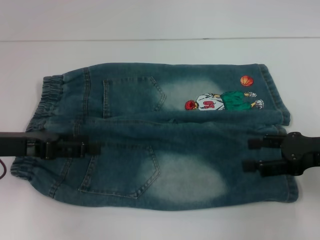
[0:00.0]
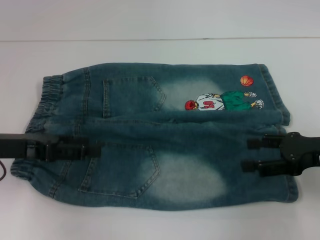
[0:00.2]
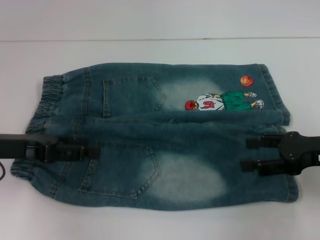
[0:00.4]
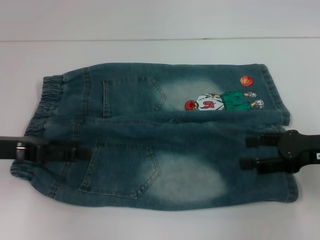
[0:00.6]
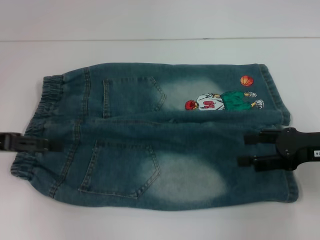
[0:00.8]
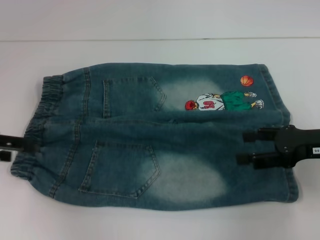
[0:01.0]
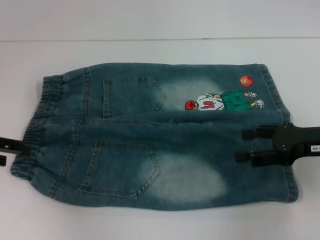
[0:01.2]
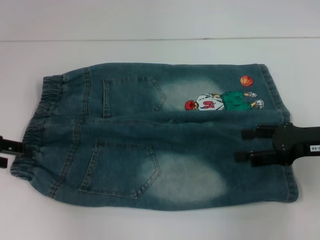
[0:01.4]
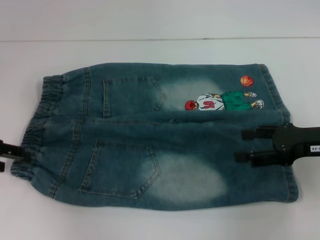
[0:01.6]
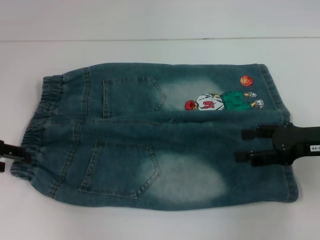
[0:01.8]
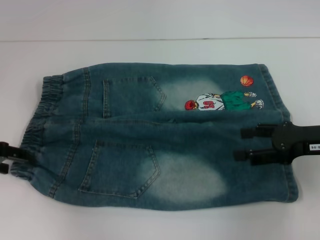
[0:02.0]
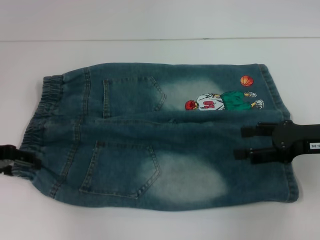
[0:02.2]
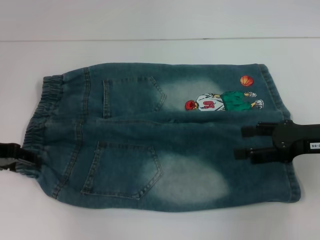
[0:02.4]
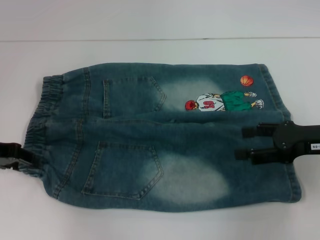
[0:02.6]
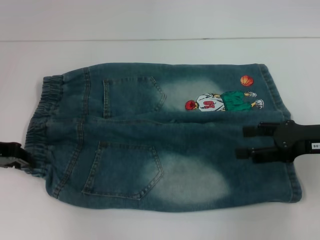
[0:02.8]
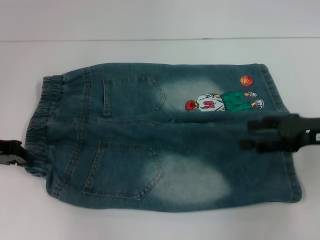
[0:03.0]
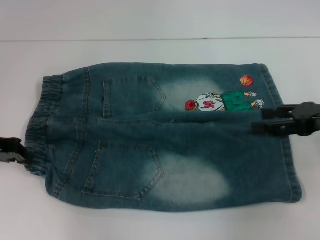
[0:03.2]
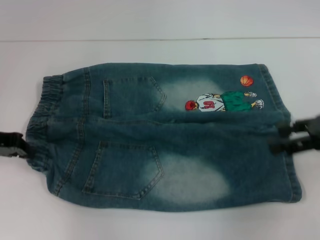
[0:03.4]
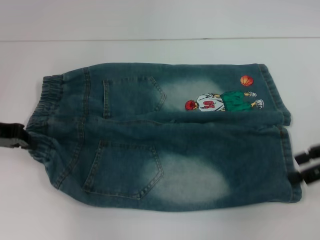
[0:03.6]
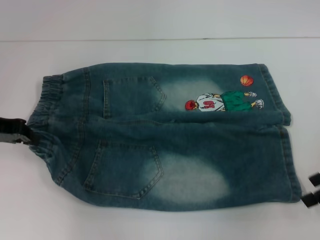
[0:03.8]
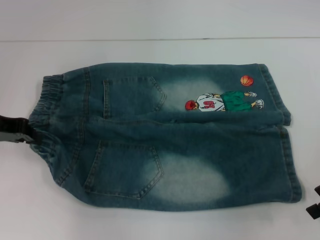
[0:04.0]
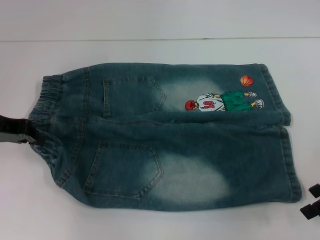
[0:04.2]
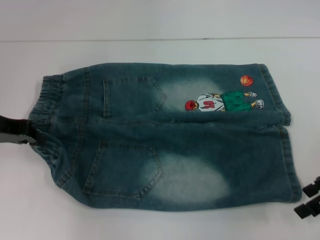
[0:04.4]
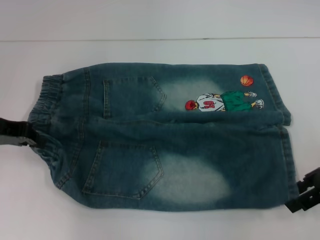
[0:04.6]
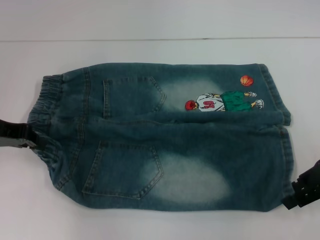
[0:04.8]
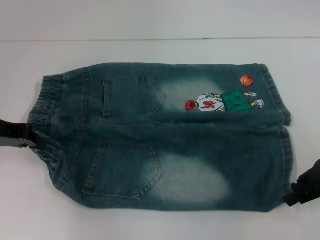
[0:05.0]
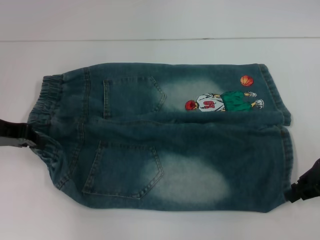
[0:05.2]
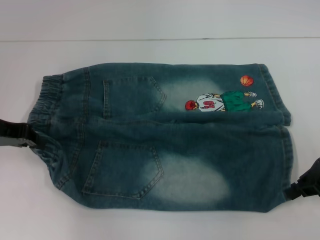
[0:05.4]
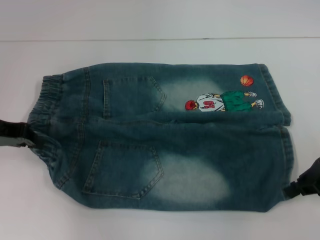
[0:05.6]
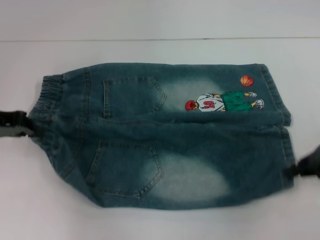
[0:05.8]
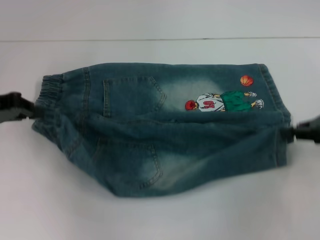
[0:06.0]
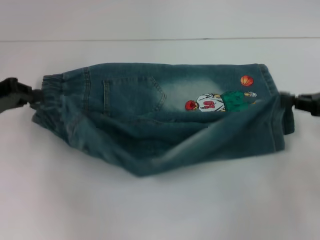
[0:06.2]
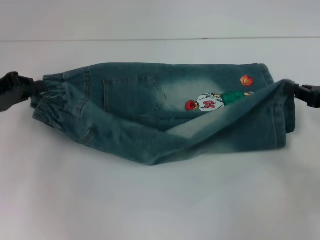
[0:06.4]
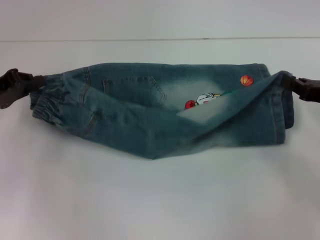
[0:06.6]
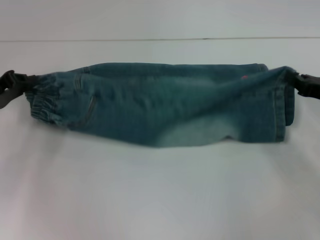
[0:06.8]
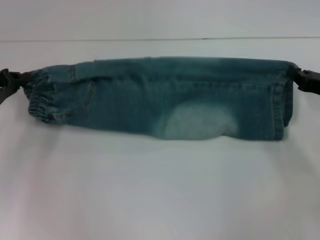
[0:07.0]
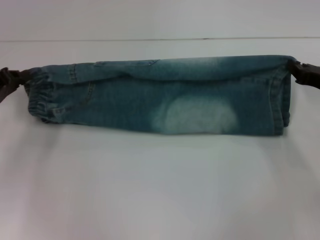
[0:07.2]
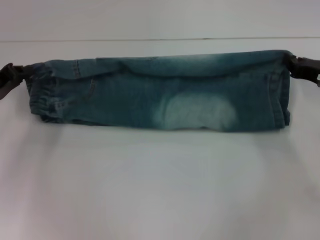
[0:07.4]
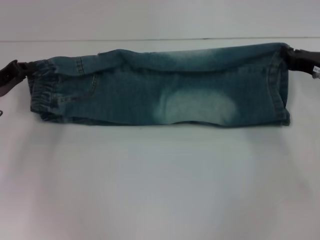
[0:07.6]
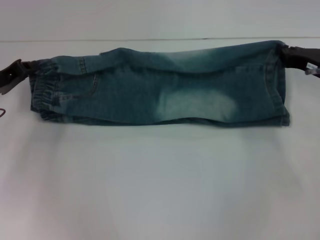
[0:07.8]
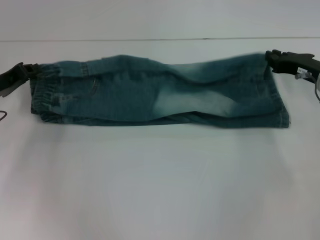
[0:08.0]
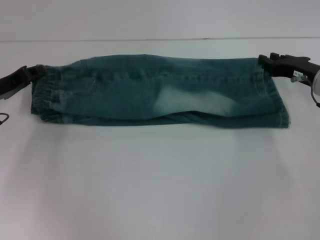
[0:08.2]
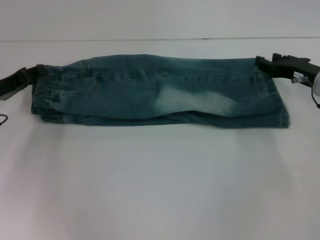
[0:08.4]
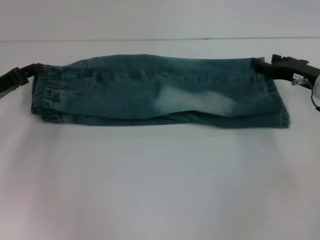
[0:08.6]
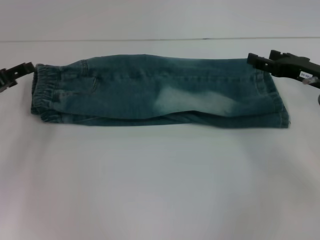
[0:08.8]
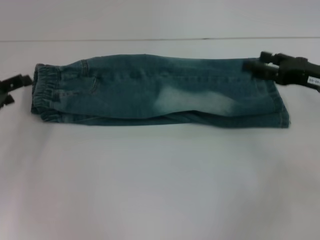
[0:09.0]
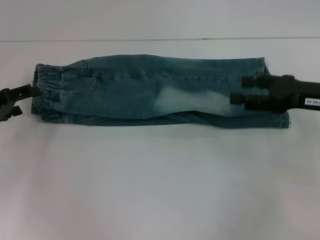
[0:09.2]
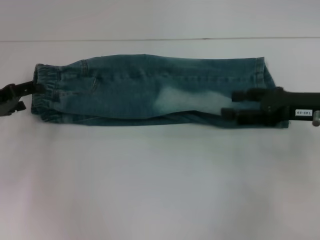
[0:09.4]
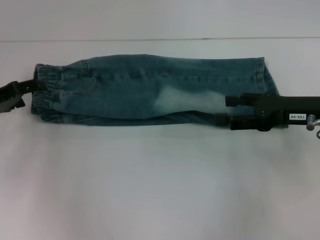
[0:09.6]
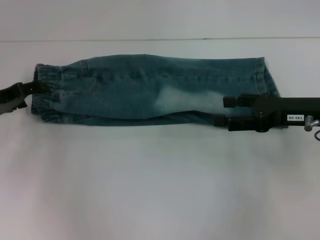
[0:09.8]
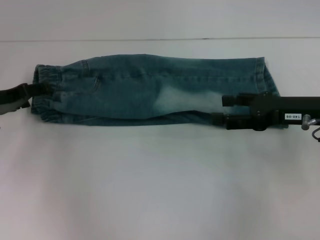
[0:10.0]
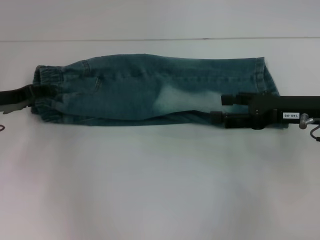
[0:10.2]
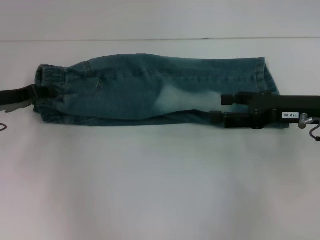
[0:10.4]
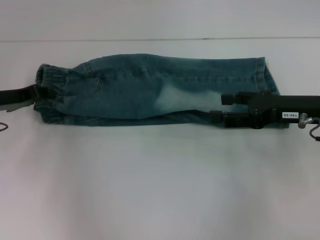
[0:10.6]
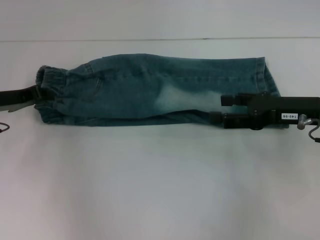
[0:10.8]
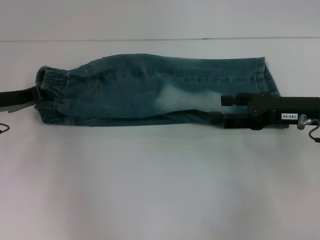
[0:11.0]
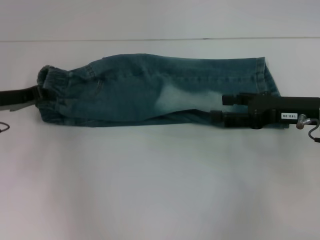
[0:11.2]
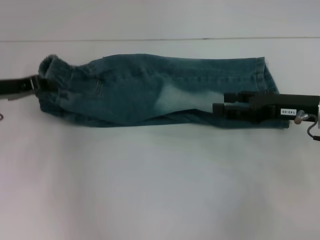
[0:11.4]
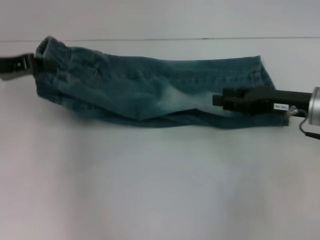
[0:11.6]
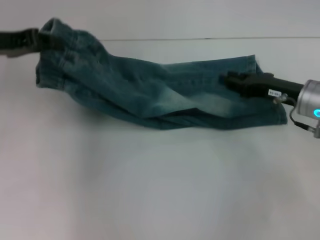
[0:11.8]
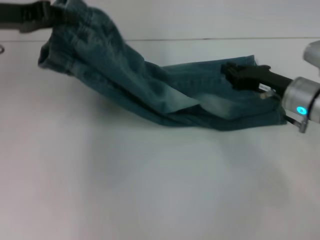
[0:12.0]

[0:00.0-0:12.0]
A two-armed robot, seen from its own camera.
Step, 0:00.0 to 0:02.8: Hold the lower left waistband with your left hand.
Step, 0:03.0 to 0:04.8: Grab the lower right pant leg with your right hand.
Step, 0:05.2 to 0:08.2: Fold upward with your right hand.
Step, 0:08.4 to 0:10.4: Hold the waistband with your left hand.
0:00.0 to 0:01.6: The left gripper is displaced to the left by roughly 5 cm.
0:01.6 to 0:03.0: The left gripper closes its fingers.
0:04.4 to 0:06.0: The right gripper closes its fingers.
0:06.0 to 0:07.6: The left gripper is displaced downward by approximately 5 cm, while the right gripper travels forward and downward by some 10 cm.
0:07.6 to 0:09.0: The left gripper opens. The right gripper opens.
0:09.0 to 0:10.4: The left gripper shifts by roughly 5 cm.
0:10.4 to 0:12.0: The left gripper moves upward, about 15 cm, and closes up. Meanwhile the right gripper moves about 5 cm, and closes its fingers.

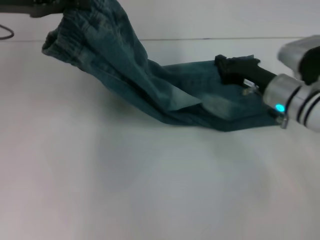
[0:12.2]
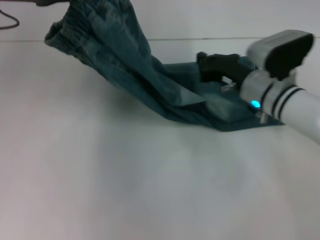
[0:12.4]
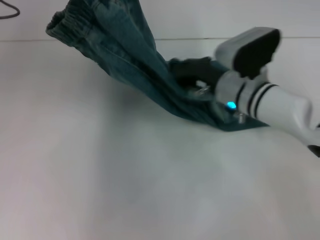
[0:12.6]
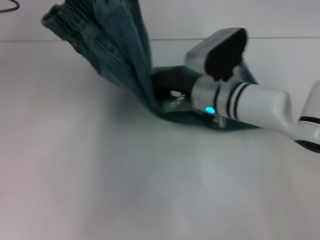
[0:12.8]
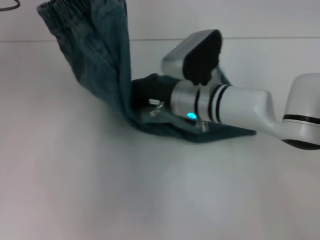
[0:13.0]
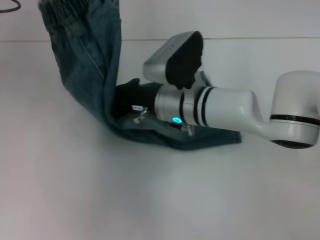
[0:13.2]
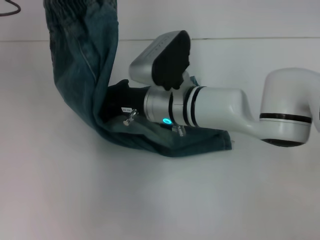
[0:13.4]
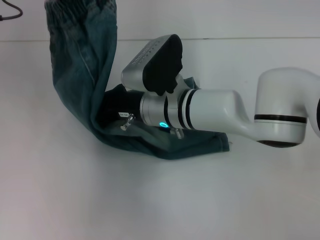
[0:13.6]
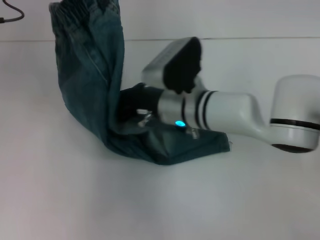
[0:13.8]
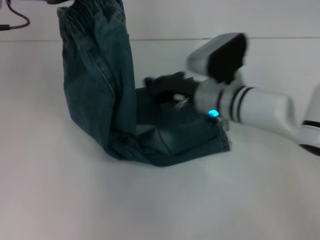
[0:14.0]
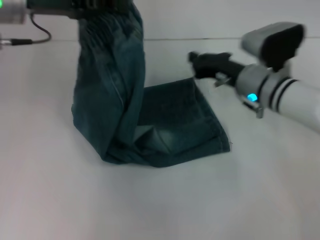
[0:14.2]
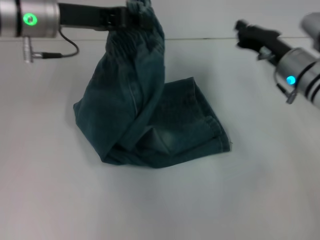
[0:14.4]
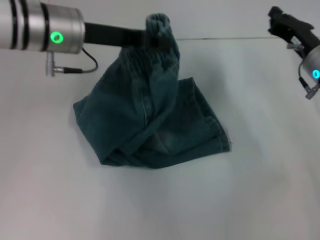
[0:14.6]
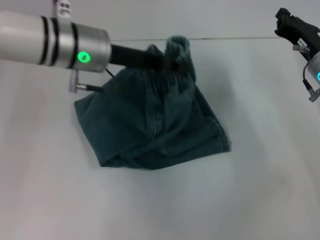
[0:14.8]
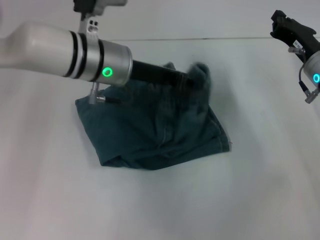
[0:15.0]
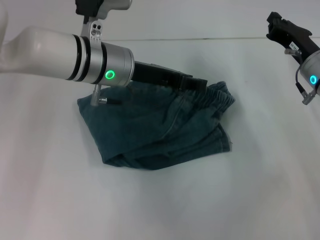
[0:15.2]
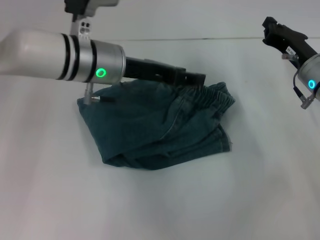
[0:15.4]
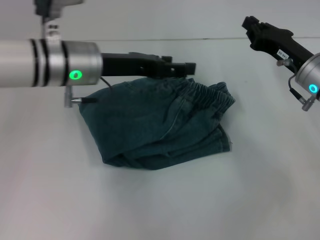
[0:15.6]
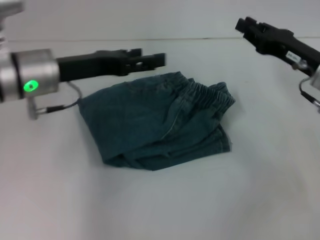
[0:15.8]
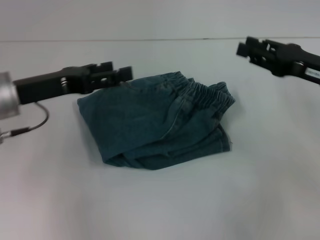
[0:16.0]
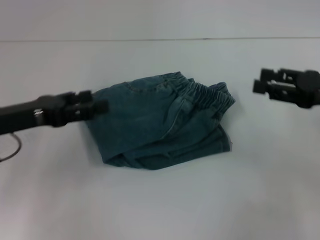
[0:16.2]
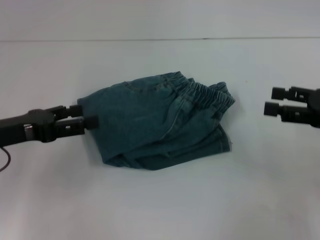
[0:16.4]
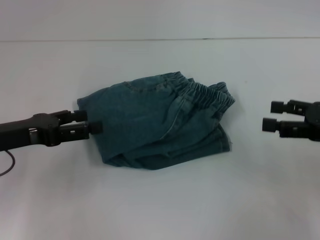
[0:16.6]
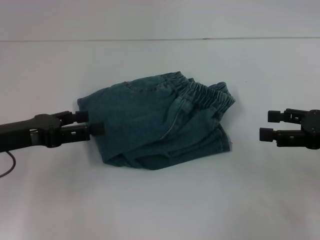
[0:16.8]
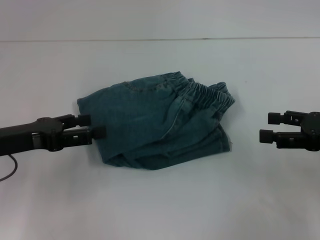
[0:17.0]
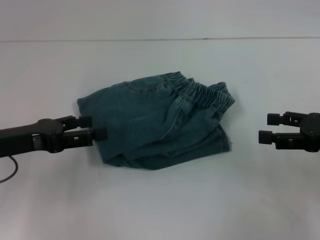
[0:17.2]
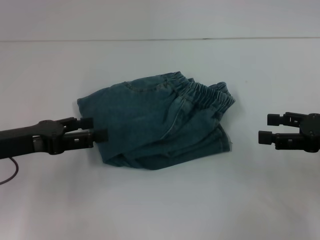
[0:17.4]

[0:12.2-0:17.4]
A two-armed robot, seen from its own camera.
Step, 0:12.2 to 0:13.8: Press the middle of the pants with your right hand.
Step, 0:14.0 to 0:15.2: Fold to the right with your left hand.
0:12.2 to 0:14.0: The right gripper shifts some 10 cm to the left.
0:14.0 to 0:15.6: The right gripper goes about 15 cm to the right. Meanwhile the left gripper travels to the right and downward by approximately 15 cm, and opens.
0:15.6 to 0:17.4: The right gripper is displaced backward and to the right by approximately 15 cm, and opens. The left gripper goes approximately 15 cm to the left and backward.

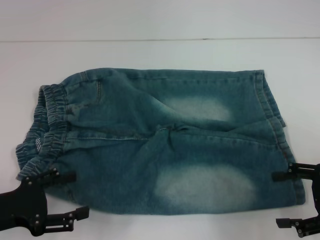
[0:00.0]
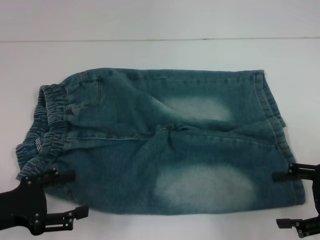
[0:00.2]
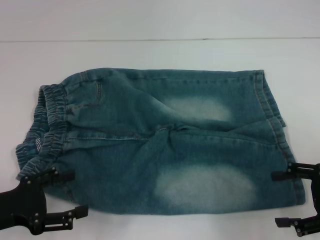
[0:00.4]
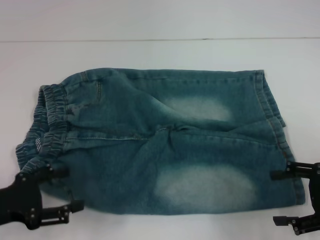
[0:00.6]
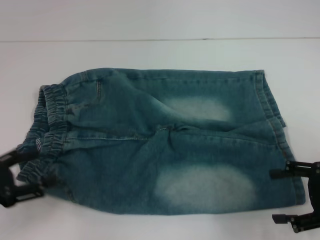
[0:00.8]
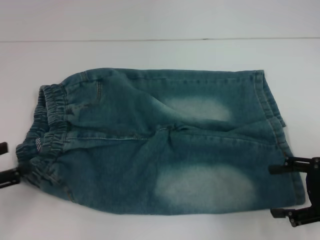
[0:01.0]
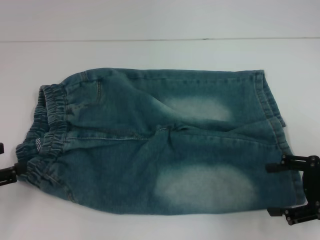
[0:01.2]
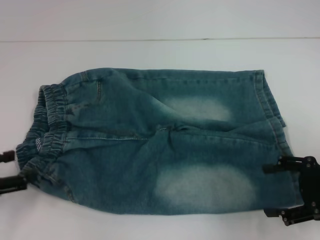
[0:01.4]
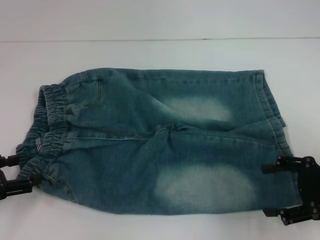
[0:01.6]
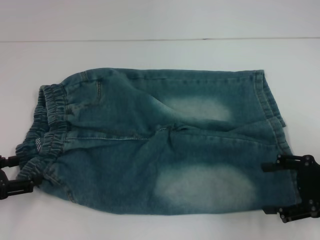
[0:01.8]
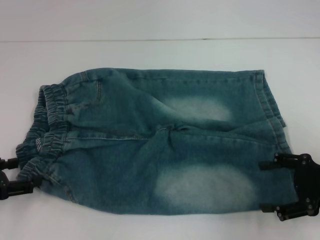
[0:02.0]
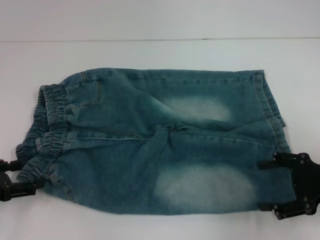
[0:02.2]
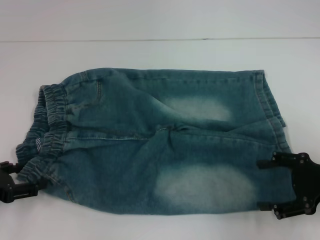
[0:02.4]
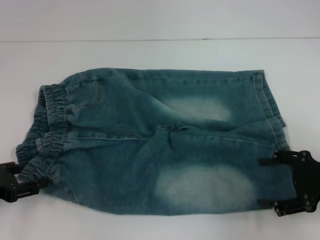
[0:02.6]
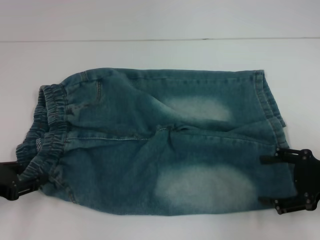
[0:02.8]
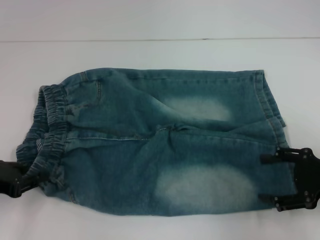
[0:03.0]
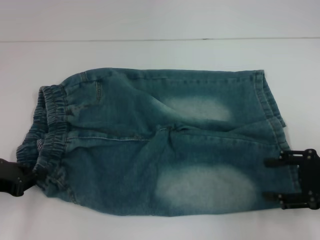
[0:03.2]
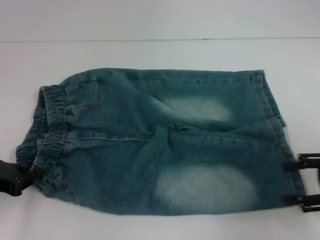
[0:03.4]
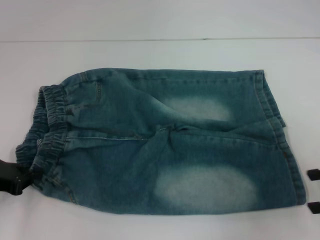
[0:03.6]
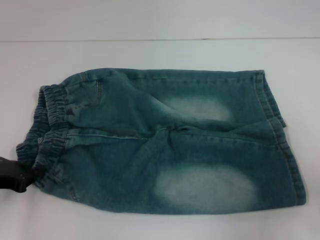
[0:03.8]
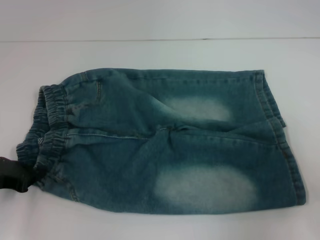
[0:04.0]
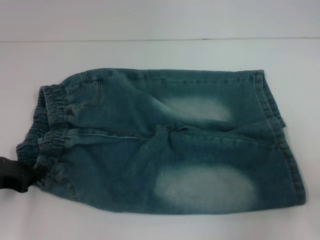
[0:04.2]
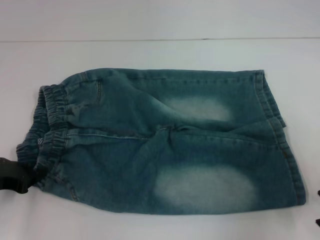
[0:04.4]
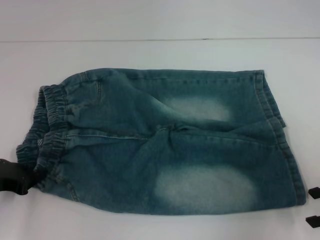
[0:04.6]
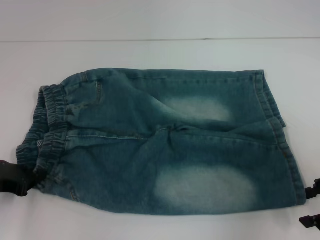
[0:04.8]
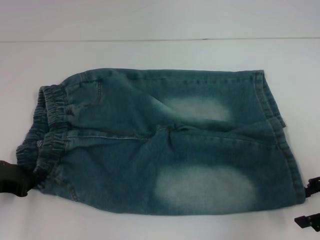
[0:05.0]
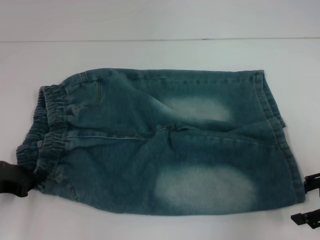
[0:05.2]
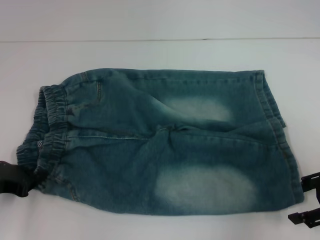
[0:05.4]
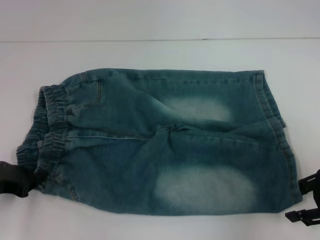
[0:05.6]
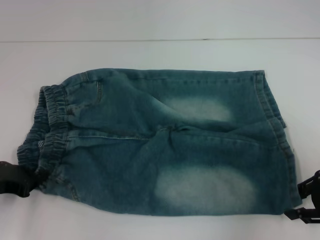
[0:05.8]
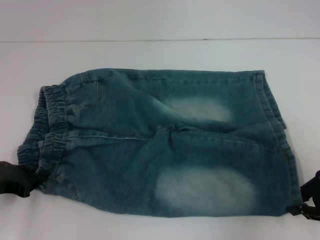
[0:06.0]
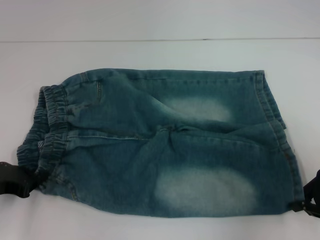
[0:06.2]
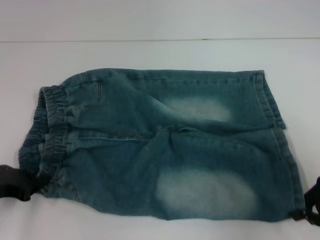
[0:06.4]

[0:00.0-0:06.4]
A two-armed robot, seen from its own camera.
Step, 0:00.0 to 0:06.0: Hold the lower left waistband with your left hand.
0:00.0 to 0:01.6: The left gripper moves roughly 5 cm.
0:01.6 to 0:03.2: The left gripper closes up.
0:04.8 to 0:06.4: The right gripper closes its fingers.
